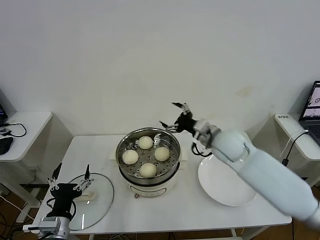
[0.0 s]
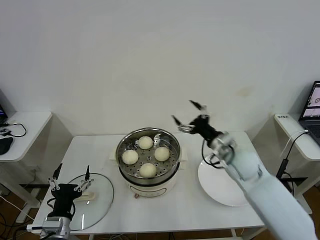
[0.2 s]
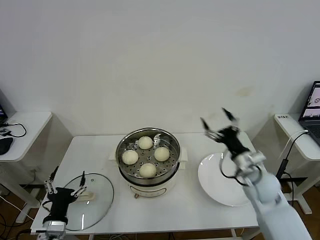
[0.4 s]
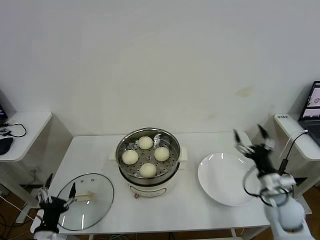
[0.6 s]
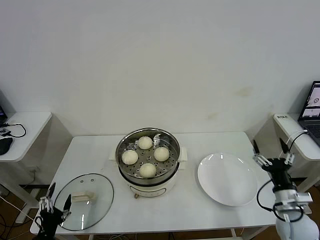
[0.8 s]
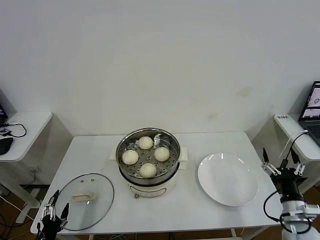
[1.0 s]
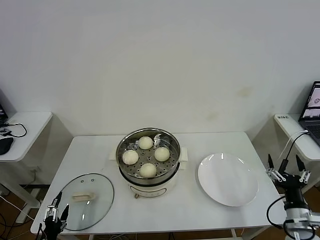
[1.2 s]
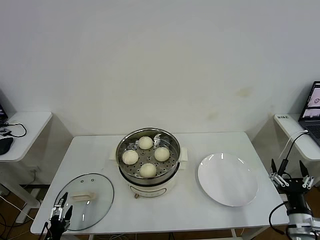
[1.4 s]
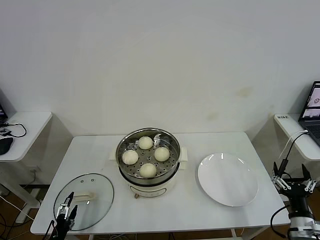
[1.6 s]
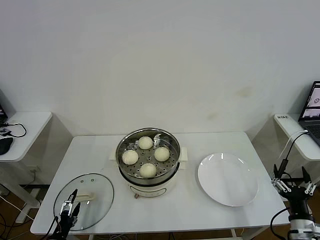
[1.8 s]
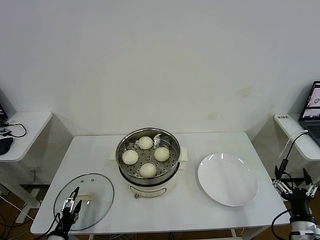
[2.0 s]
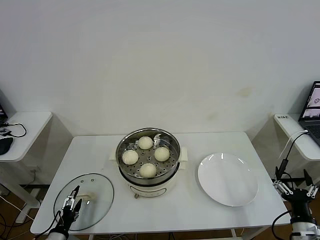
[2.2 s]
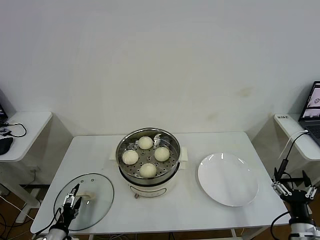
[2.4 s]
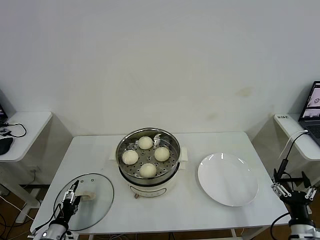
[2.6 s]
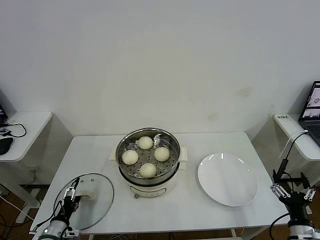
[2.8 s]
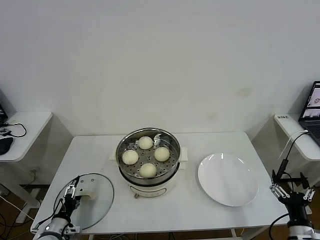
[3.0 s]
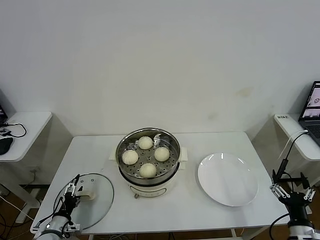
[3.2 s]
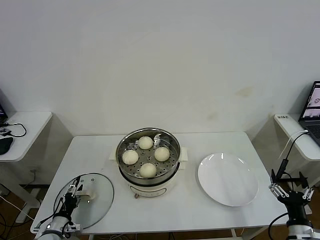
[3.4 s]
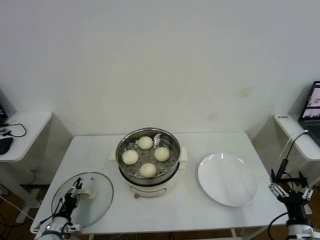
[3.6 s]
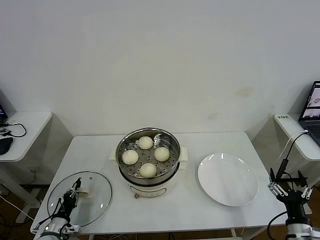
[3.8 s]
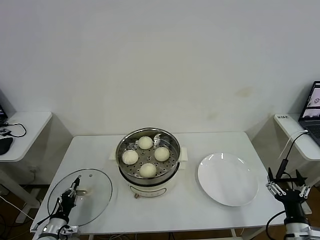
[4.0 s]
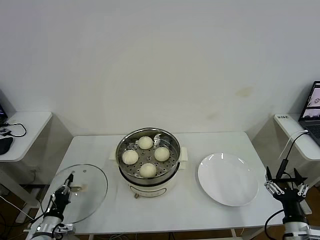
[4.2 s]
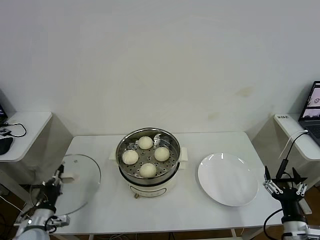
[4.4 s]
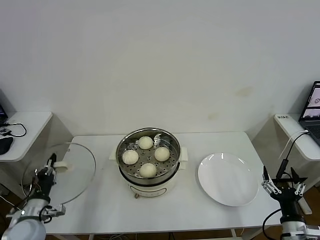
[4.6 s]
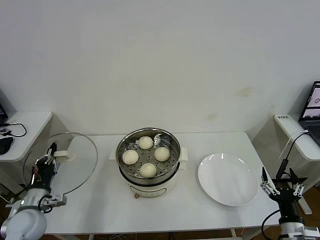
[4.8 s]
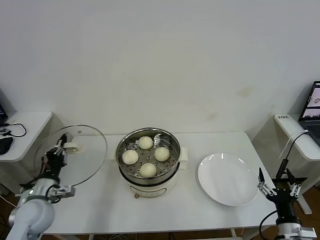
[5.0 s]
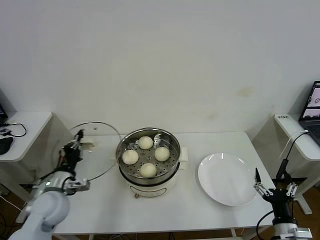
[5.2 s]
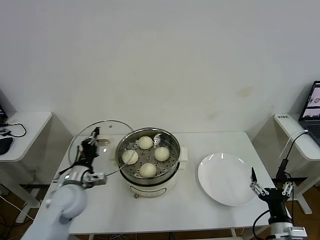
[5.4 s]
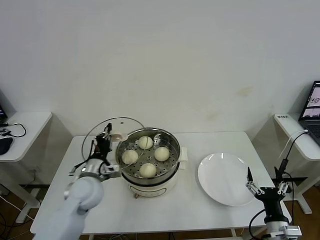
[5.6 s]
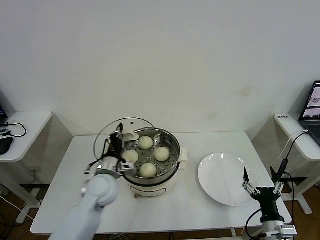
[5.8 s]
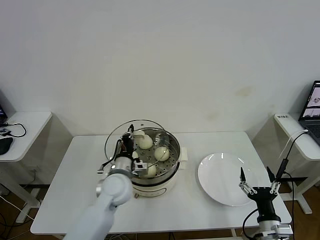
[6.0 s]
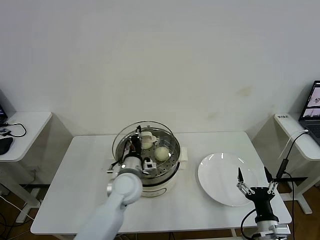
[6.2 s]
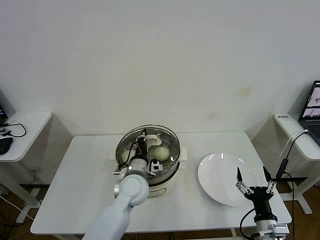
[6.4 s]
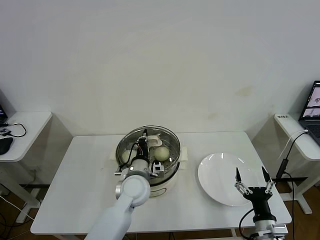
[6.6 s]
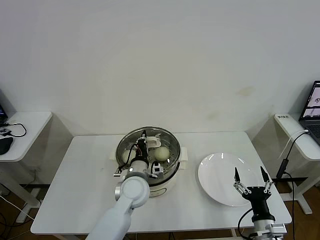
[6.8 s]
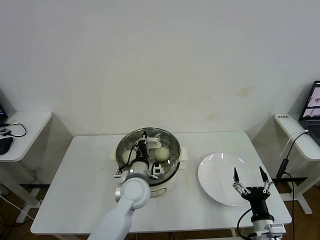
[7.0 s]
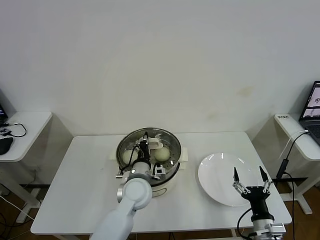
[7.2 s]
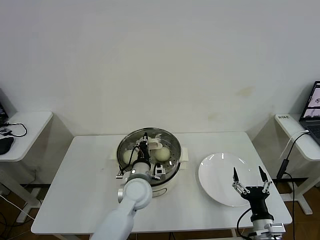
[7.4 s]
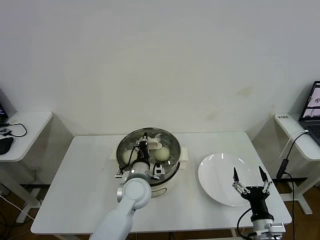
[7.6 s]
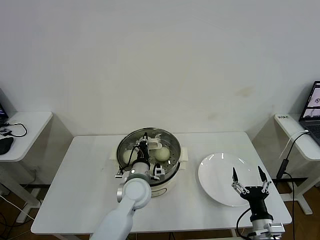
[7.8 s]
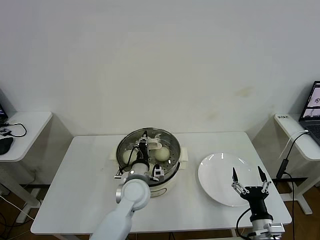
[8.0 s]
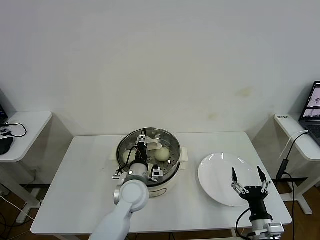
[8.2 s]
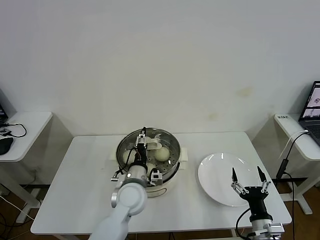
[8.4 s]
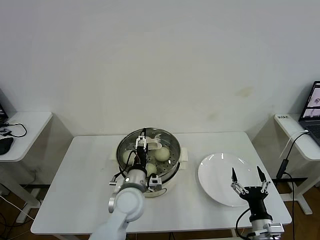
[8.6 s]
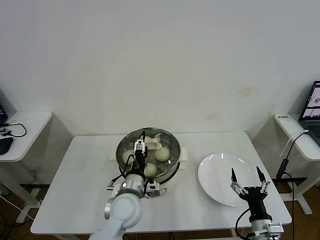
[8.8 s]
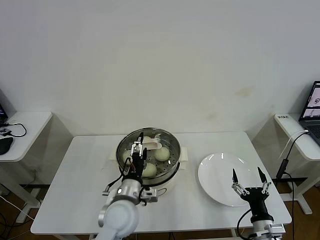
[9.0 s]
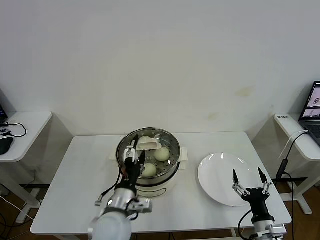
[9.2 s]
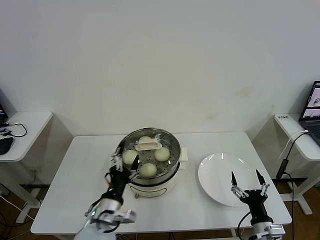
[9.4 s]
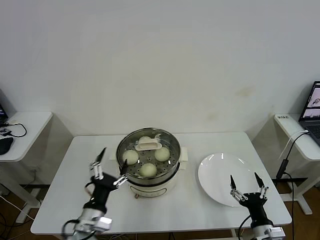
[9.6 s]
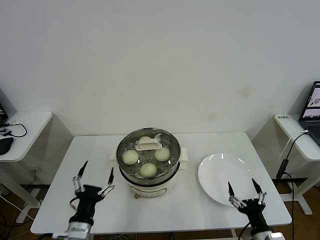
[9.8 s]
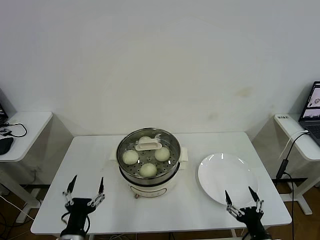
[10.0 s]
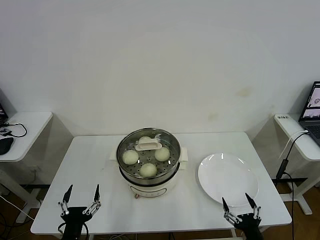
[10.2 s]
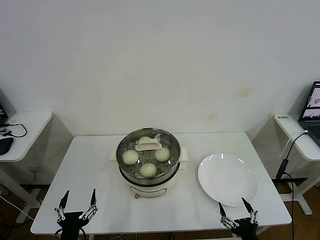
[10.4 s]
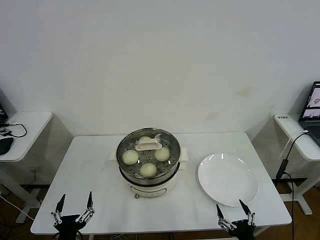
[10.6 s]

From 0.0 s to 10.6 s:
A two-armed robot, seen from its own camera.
Task of the whole recording: take steamed baozi put them in steamer then cover it.
Step, from 0.0 s to 4.0 s: Grasp the pot lid with left gripper.
Step, from 4.2 s to 8.4 s: Place the pot lid on the steamer with left gripper.
From 0.0 s to 1.6 s: The right gripper moves backward, to the right and downward, roughly 35 cm. Meanwhile the left gripper shifts about 15 cm downward and to the left.
From 1.6 s to 3.0 s: The left gripper heads forward, covering approximately 10 cm.
From 3.0 s to 4.6 s: The left gripper shifts some 10 cm upward, and closes.
From 4.6 s to 6.0 s: The left gripper moves to the right and forward, roughly 30 cm. Meanwhile the right gripper is displaced to the left by some 5 cm.
From 6.0 s to 7.6 s: The left gripper shifts approximately 5 cm to the right.
From 7.6 s to 9.0 s: The left gripper goes roughly 5 cm backward, and opens up.
From 9.0 s to 10.6 s: The left gripper heads backward and to the left, covering some 25 cm, while the right gripper travels backward by some 10 cm.
